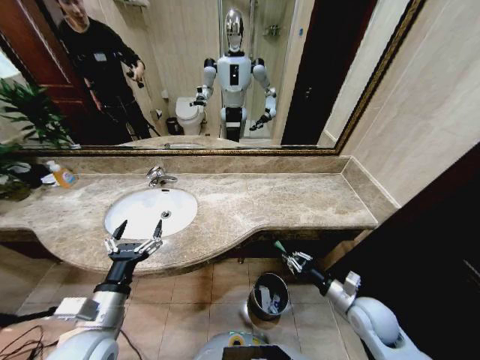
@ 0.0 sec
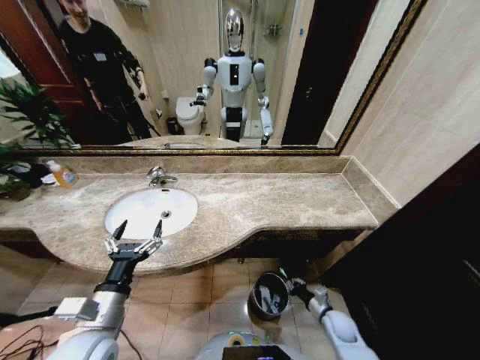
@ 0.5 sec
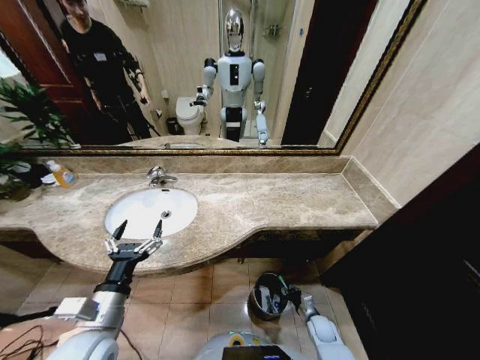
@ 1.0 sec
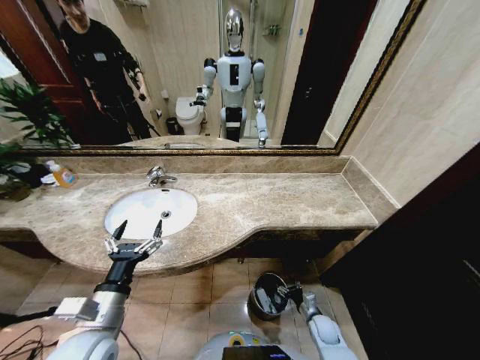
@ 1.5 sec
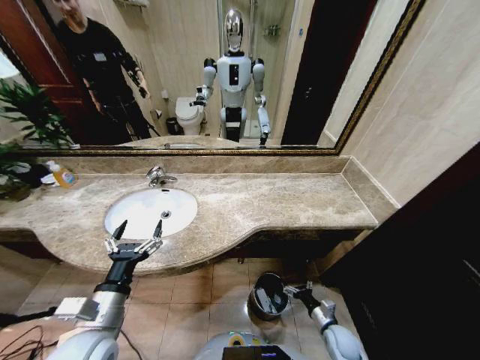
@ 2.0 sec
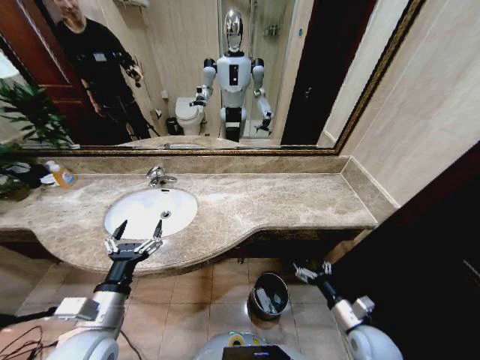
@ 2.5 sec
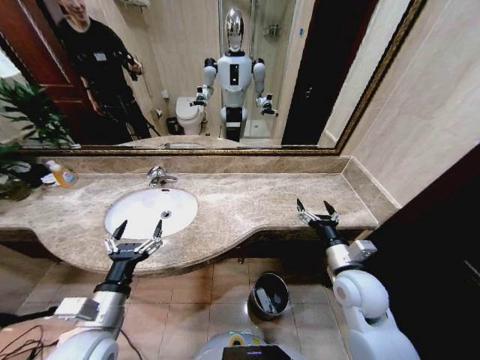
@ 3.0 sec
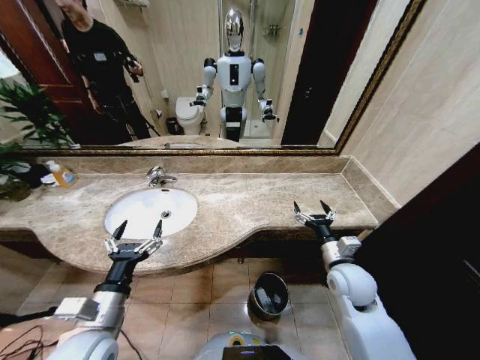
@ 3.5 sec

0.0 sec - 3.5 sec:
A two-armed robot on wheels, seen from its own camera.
Task of the whole recording: Pick up the trash from the sink and place it in the trash bin.
0.0 sec - 2.0 sec: The right gripper is displaced downward by roughly 20 cm, and opens up.
2.0 sec - 3.5 sec: The right gripper goes some 25 cm upward.

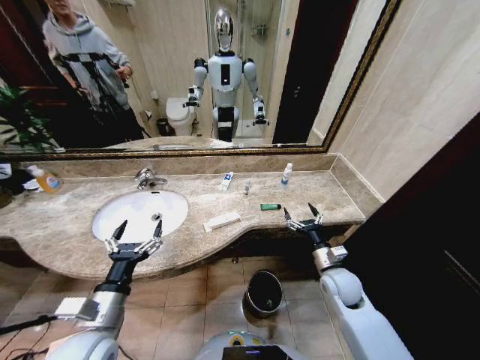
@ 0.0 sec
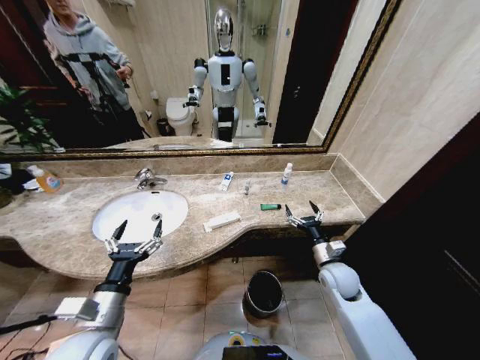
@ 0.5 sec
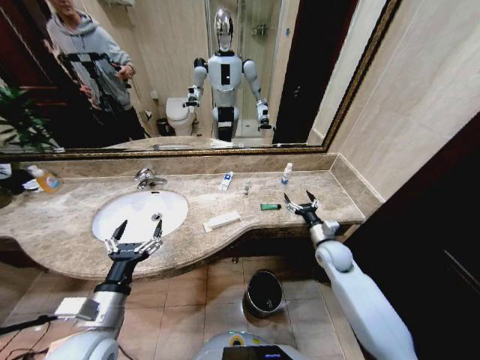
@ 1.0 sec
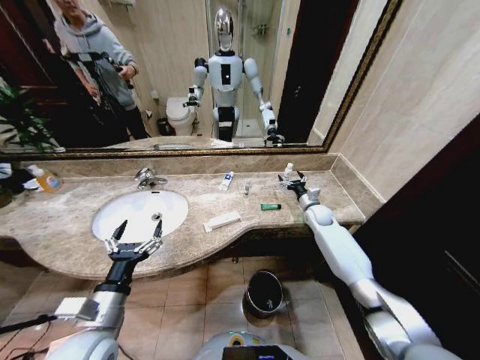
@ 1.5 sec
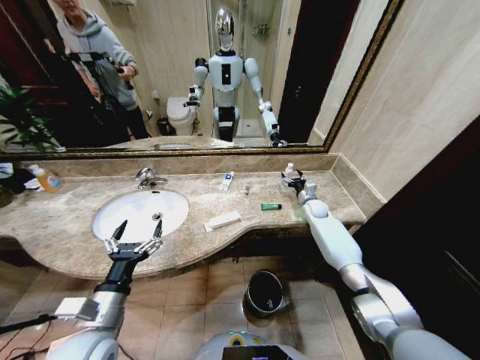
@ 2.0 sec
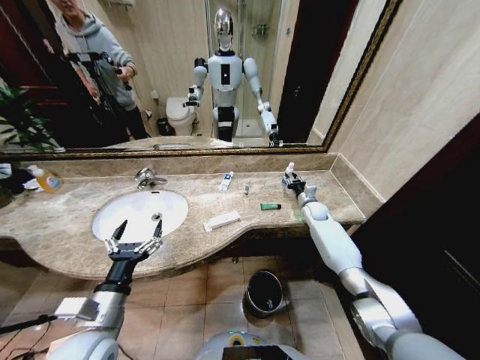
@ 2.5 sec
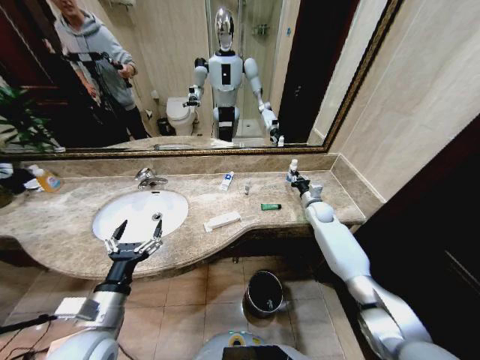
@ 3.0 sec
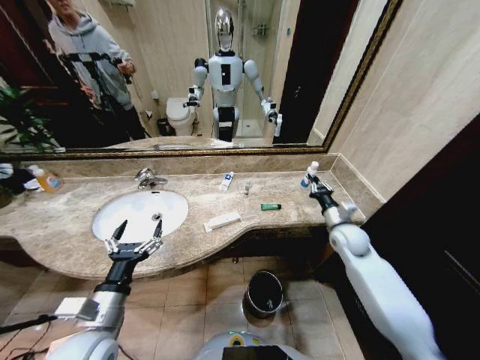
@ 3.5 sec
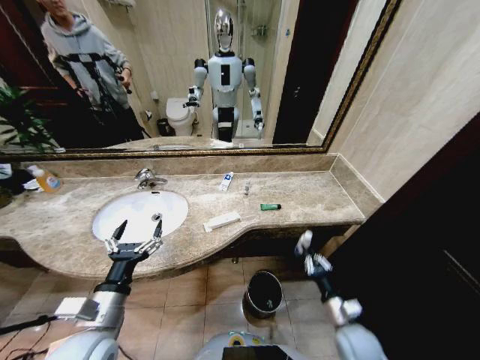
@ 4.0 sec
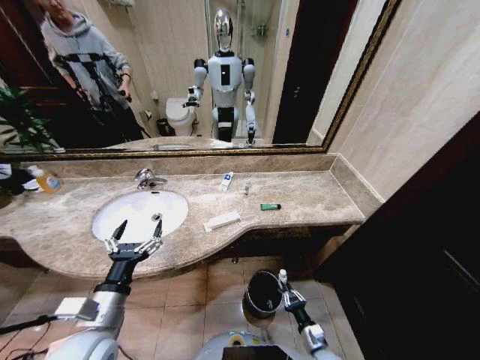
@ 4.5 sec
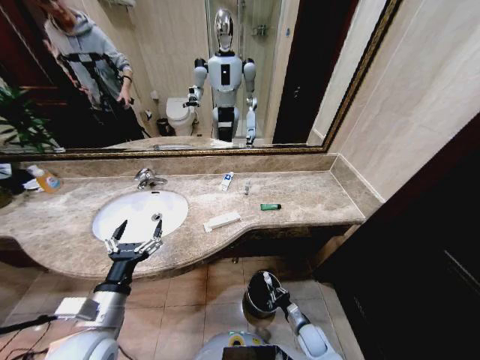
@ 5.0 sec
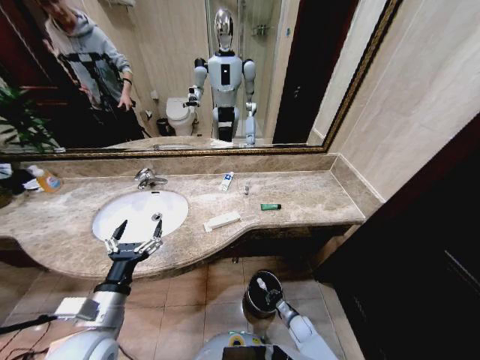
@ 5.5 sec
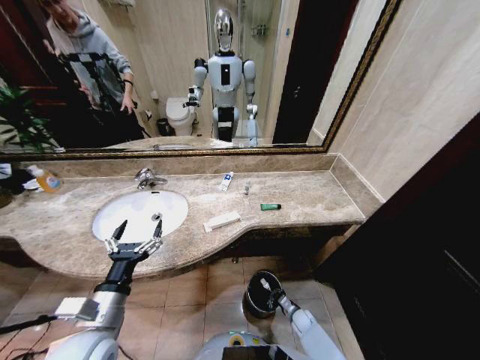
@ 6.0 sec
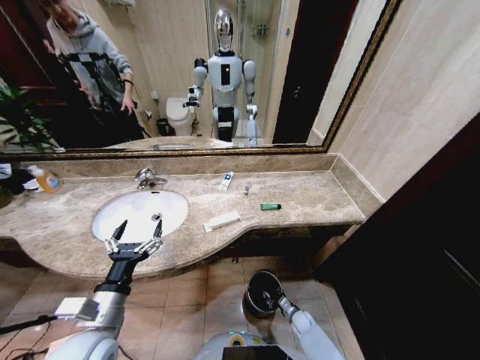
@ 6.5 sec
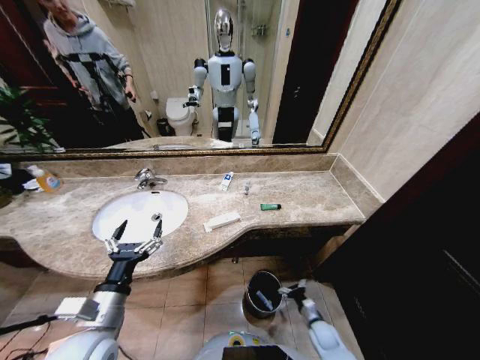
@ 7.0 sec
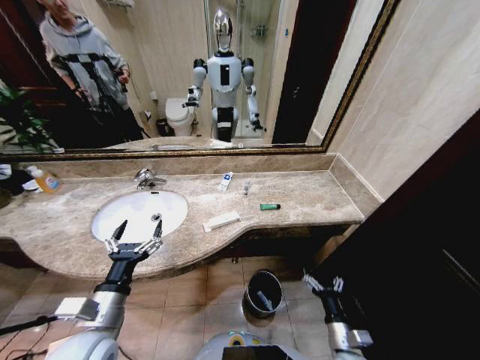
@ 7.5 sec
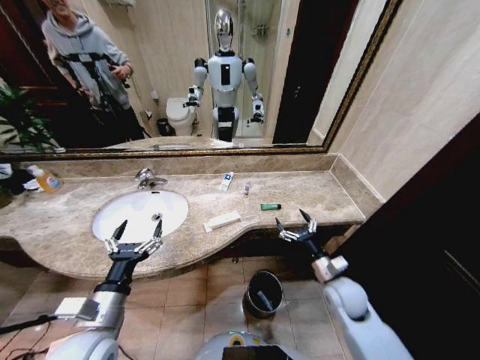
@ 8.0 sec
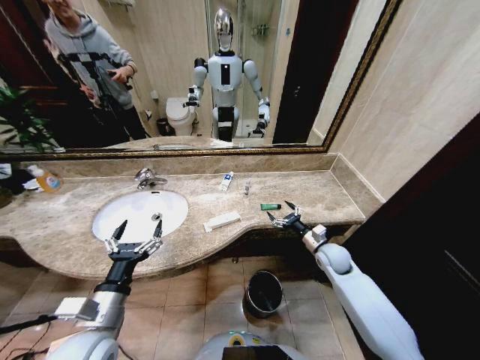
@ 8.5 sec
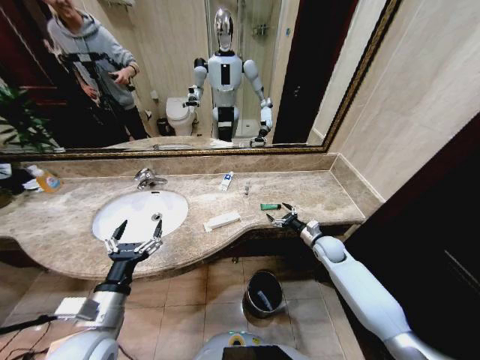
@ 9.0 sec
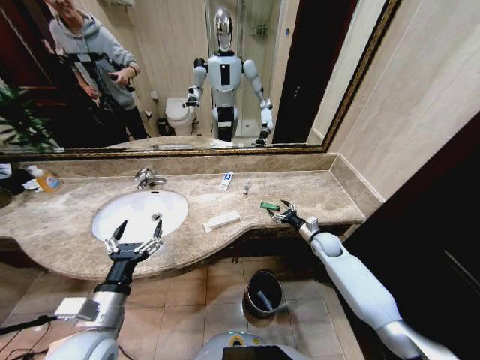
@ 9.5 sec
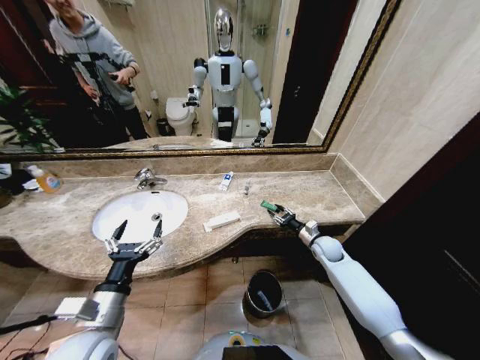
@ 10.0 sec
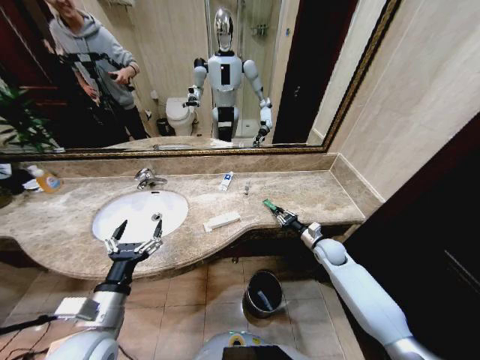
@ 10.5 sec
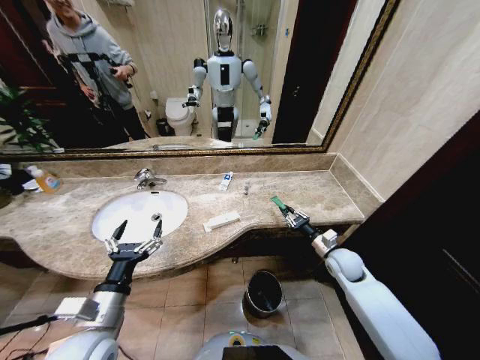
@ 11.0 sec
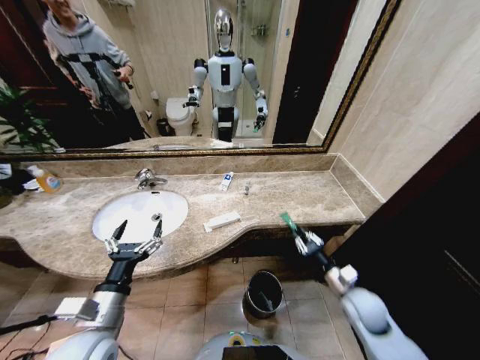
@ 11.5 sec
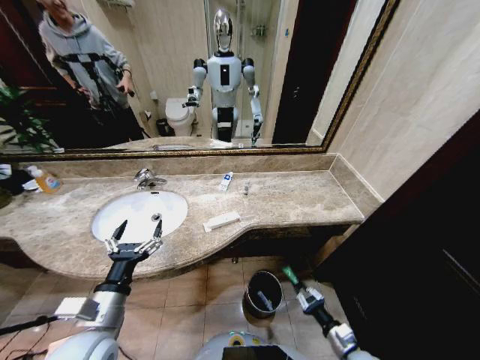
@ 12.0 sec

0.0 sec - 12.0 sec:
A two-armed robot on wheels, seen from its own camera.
Task of the whole recording: Pick up the trash from the sink and place it in the trash bin.
2.0 sec - 4.0 sec: The right gripper shifts about 40 cm backward, and closes its fingers.
4.0 sec - 6.0 sec: The right gripper shifts some 25 cm downward.
6.0 sec - 8.0 sec: The right gripper moves upward, some 30 cm, and opens.
8.0 sec - 10.0 sec: The right gripper heads forward, covering some 15 cm, and closes its fingers.
10.0 sec - 12.0 sec: The right gripper moves backward, roughly 30 cm.

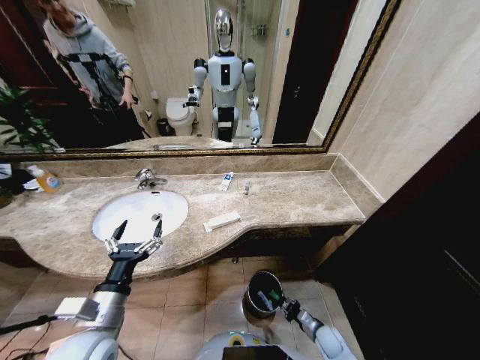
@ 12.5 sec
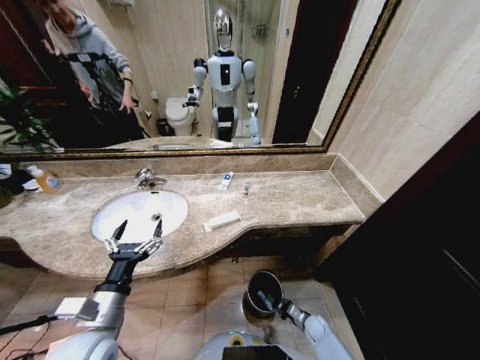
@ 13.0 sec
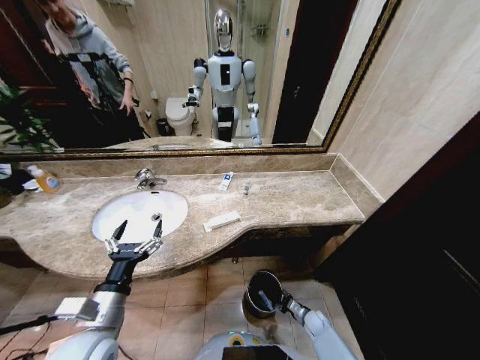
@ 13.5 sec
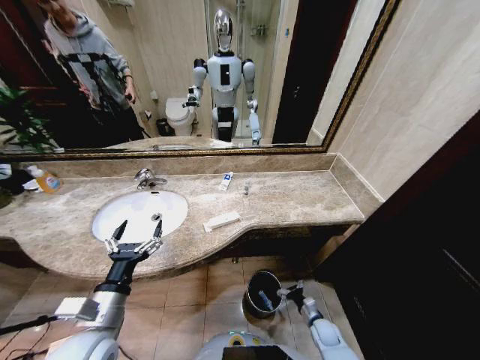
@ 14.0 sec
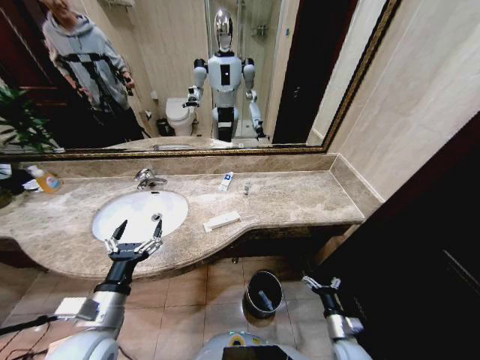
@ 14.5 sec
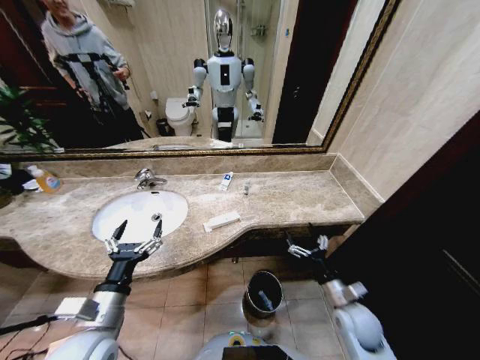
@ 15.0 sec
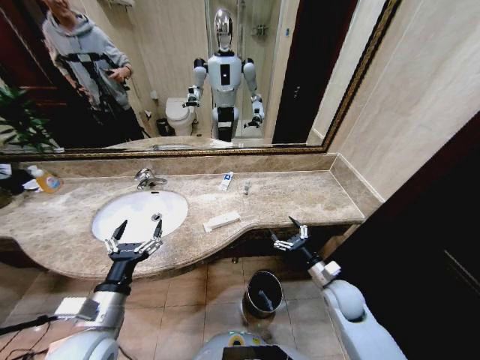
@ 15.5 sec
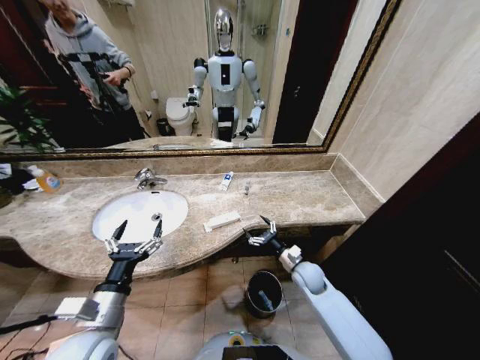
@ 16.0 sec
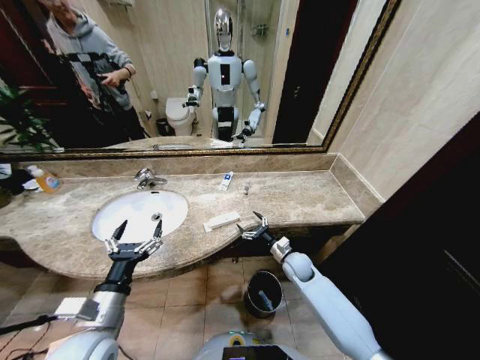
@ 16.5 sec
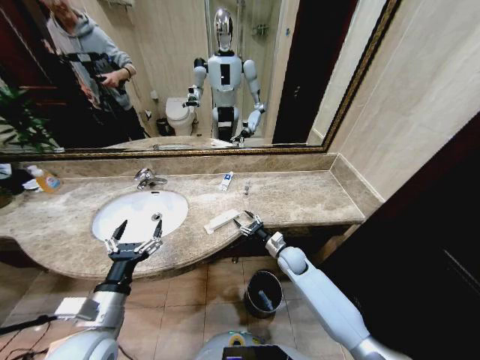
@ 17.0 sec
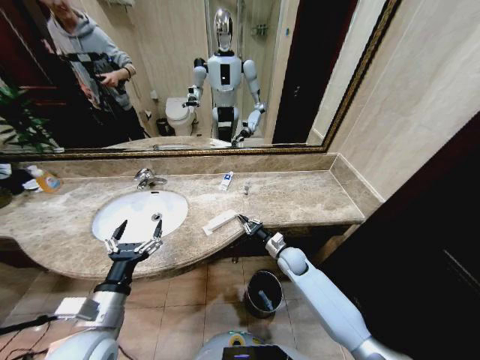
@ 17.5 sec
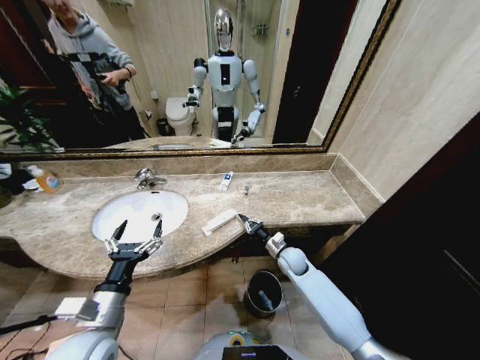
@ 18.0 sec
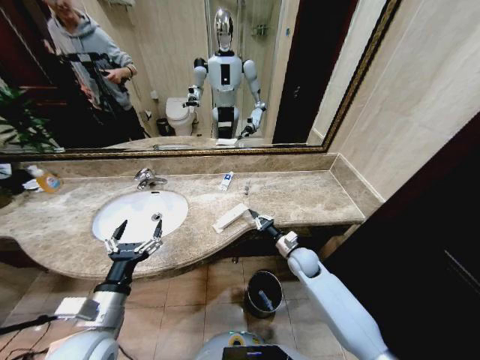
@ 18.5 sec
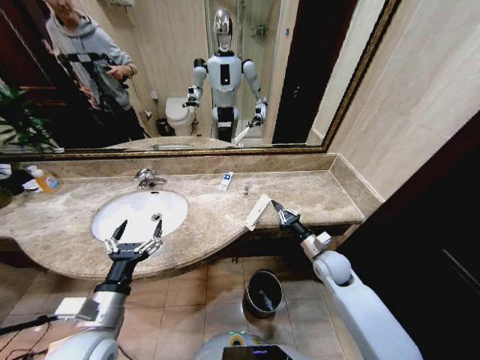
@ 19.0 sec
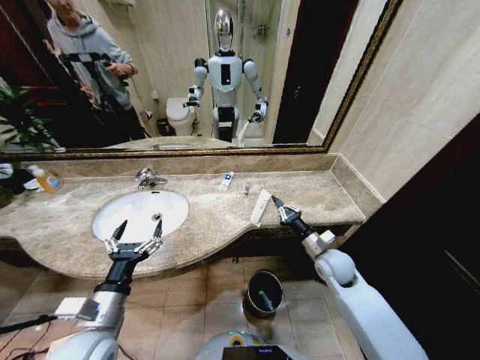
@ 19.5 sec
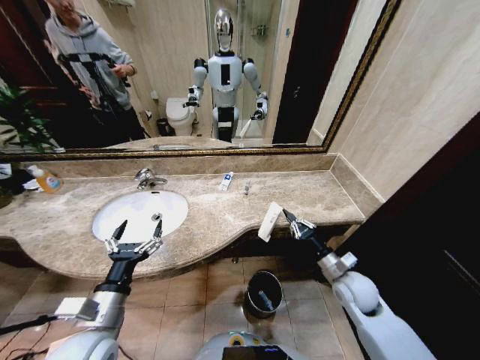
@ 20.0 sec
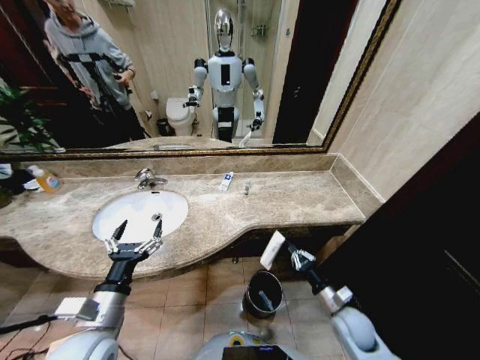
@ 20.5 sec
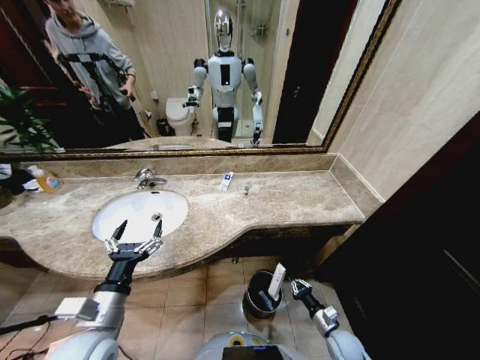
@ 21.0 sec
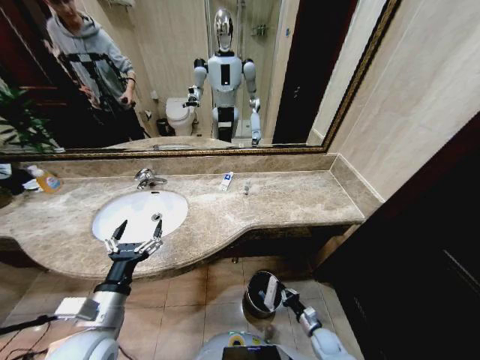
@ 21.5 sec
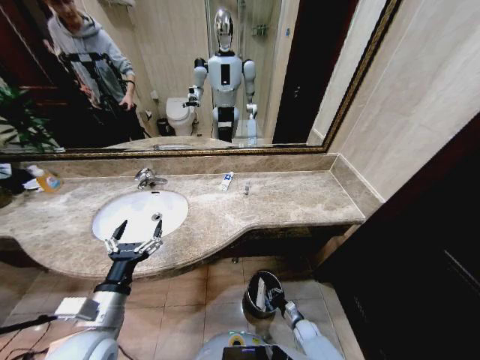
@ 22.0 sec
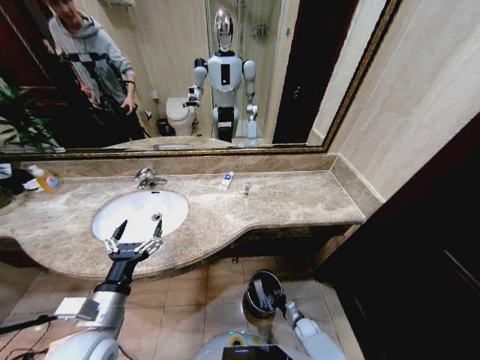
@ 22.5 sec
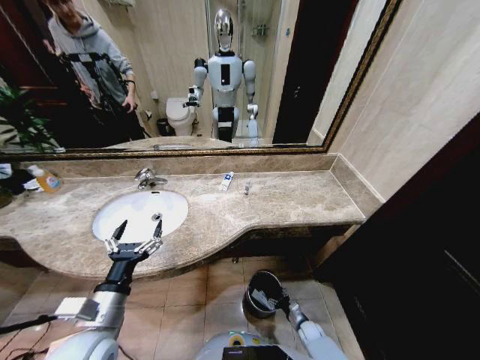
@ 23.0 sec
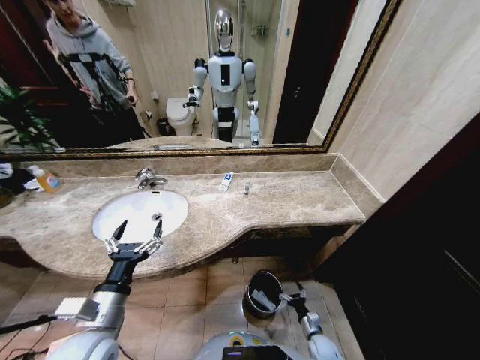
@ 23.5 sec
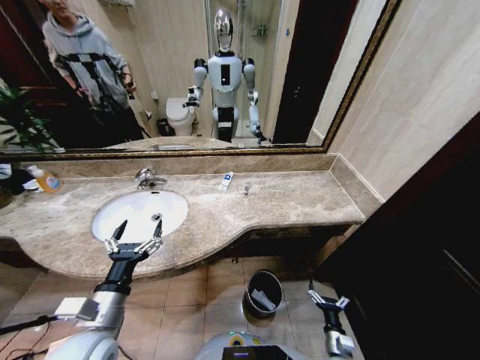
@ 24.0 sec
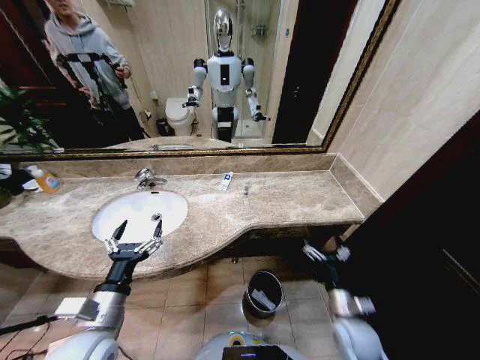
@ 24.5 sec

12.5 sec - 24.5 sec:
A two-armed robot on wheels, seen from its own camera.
Task of the whole recording: Pick up the trash from the sink and place it in the trash bin.
12.5 sec - 14.5 sec: The right gripper travels upward by approximately 10 cm, and opens its fingers.
14.5 sec - 16.5 sec: The right gripper goes some 25 cm forward and to the left.
16.5 sec - 18.5 sec: The right gripper closes up.
18.5 sec - 20.5 sec: The right gripper is displaced backward and to the right by about 20 cm.
20.5 sec - 22.5 sec: The right gripper is displaced downward by some 25 cm.
22.5 sec - 24.5 sec: The right gripper is displaced upward by some 30 cm, and opens up.
